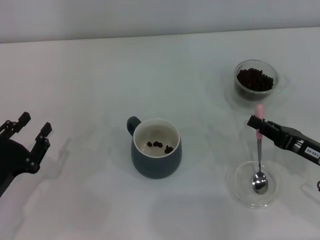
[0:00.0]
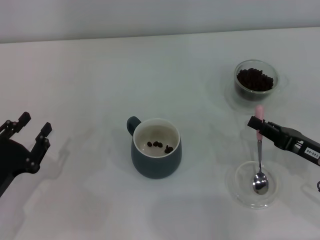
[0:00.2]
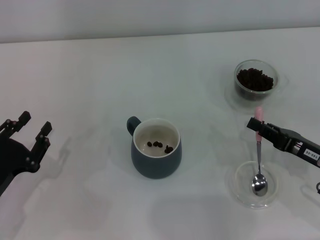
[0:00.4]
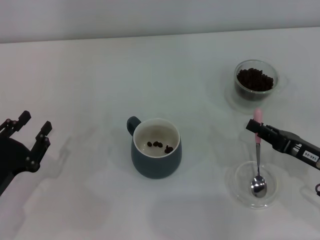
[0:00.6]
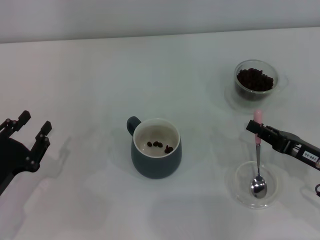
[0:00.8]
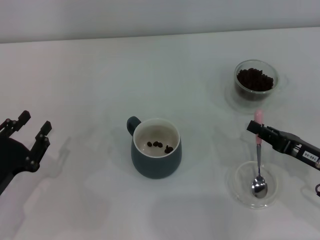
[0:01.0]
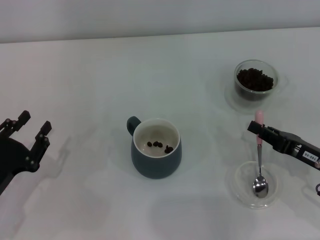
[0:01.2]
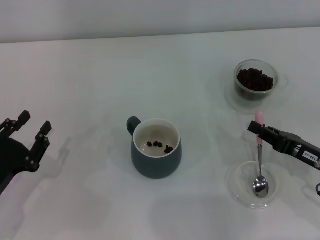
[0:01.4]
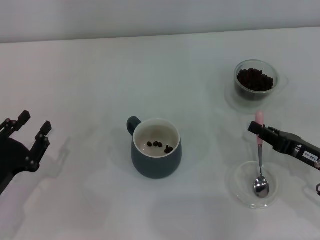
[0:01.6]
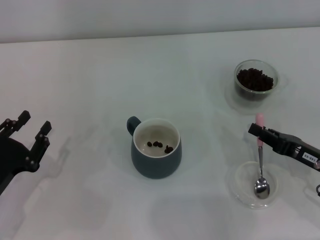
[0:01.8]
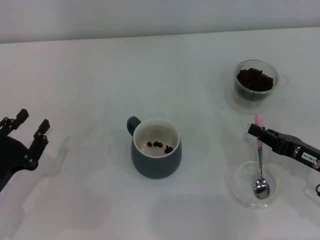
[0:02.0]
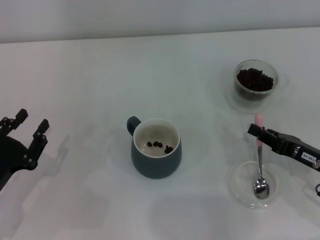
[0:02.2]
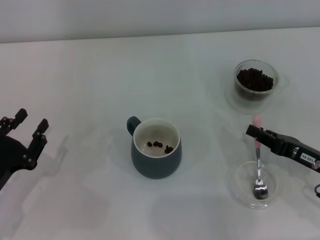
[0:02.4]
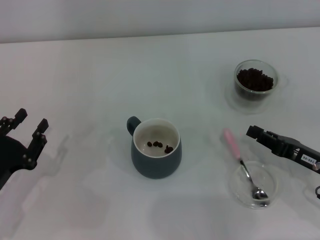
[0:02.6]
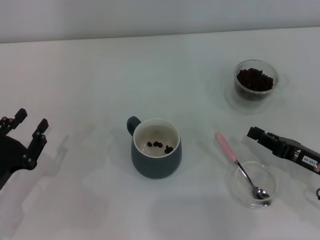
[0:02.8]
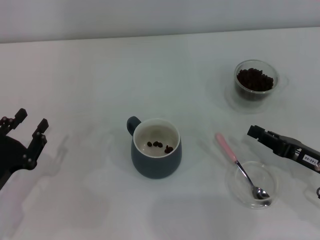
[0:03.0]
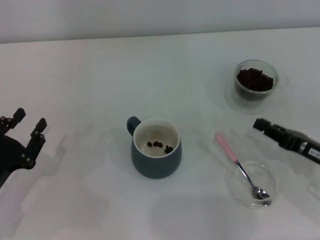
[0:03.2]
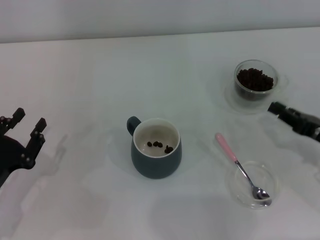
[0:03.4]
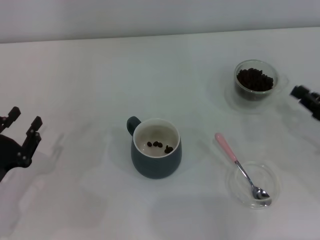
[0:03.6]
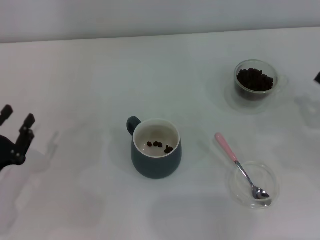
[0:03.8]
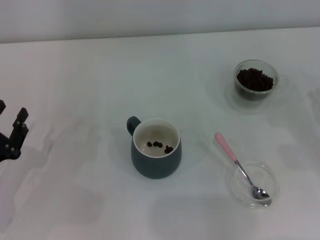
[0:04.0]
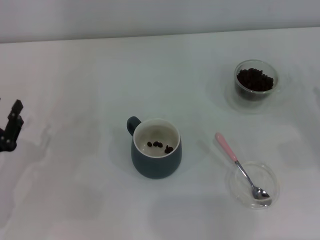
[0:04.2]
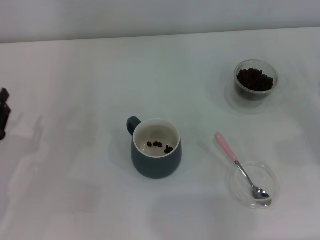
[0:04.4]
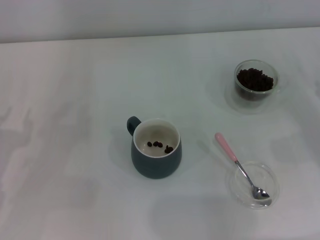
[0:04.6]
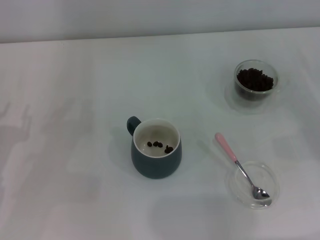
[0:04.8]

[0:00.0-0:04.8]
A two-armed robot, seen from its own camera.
Task of the whole recording: Use a pink spoon to take out the coffee beans from the glass and pour them into the gray cup.
Step, 0:00.0 to 0:02.6: Place the spoon back in its original place with the right gripper.
0:00.0 to 0:01.6: The two grippers keep their place.
0:01.6 to 0:03.2: Both grippers stay about where they are.
0:03.2 to 0:04.8: The right gripper goes about 10 cm to the right, and opens its fingers.

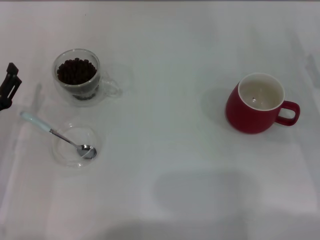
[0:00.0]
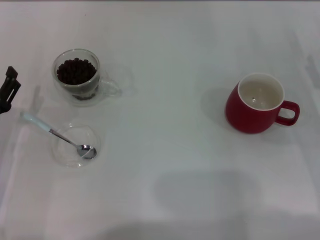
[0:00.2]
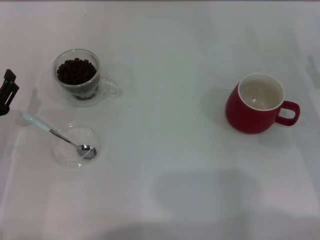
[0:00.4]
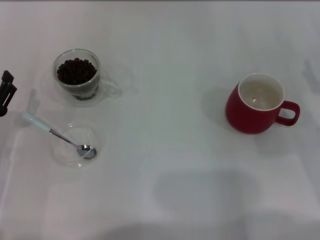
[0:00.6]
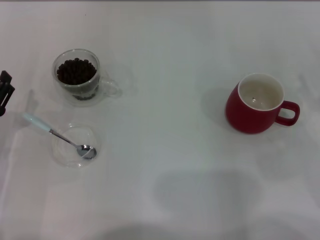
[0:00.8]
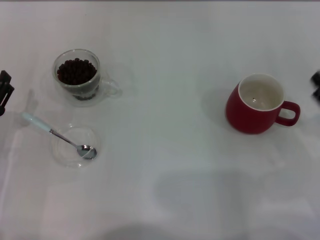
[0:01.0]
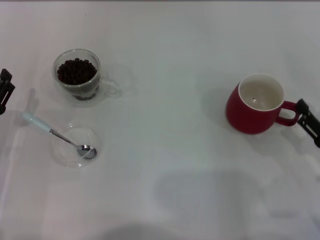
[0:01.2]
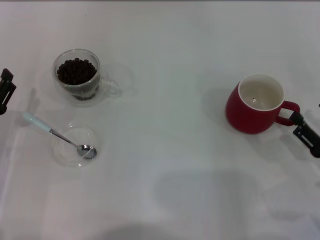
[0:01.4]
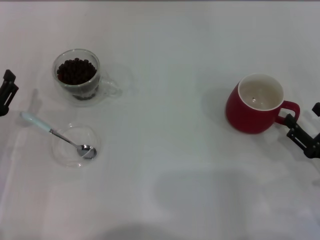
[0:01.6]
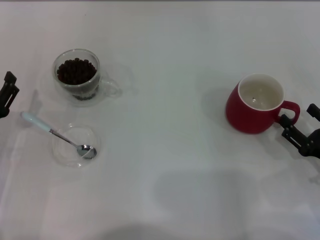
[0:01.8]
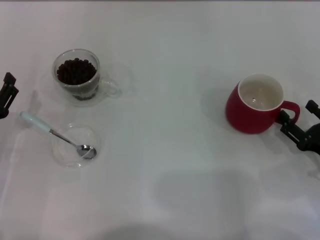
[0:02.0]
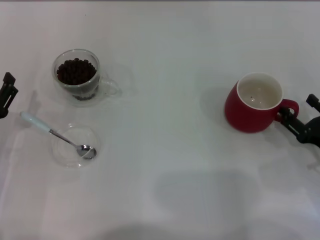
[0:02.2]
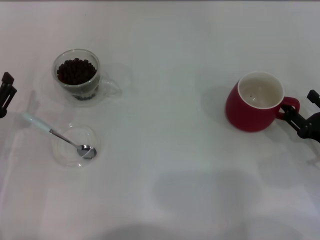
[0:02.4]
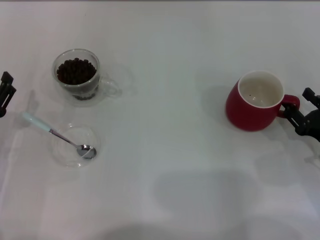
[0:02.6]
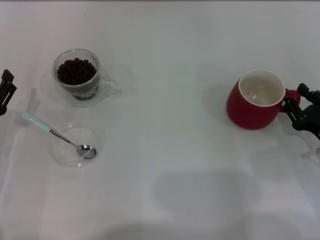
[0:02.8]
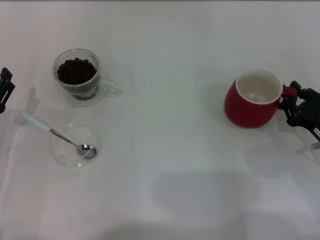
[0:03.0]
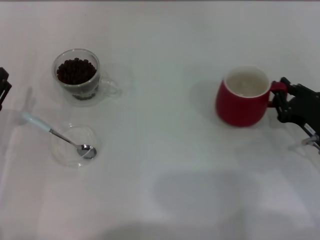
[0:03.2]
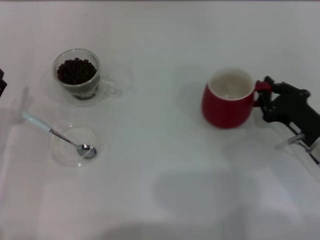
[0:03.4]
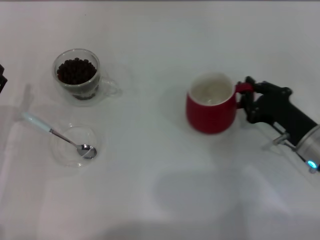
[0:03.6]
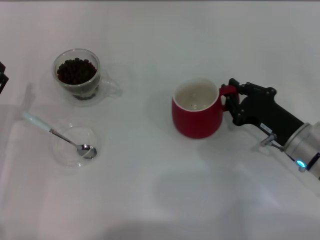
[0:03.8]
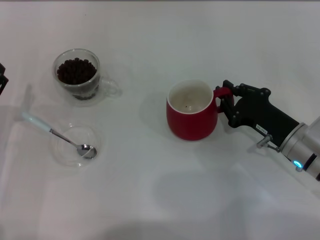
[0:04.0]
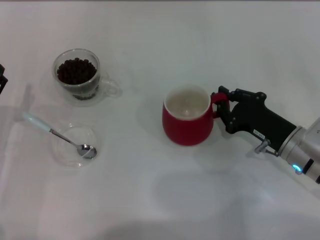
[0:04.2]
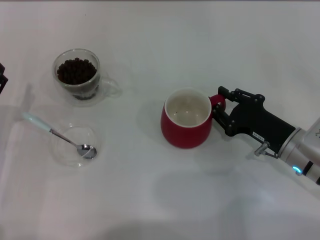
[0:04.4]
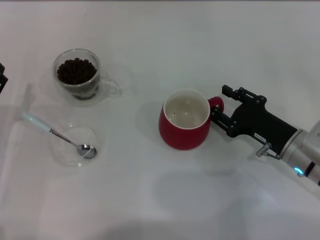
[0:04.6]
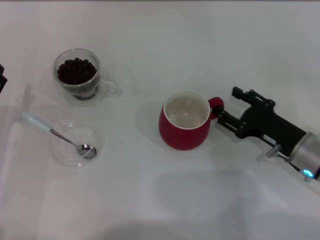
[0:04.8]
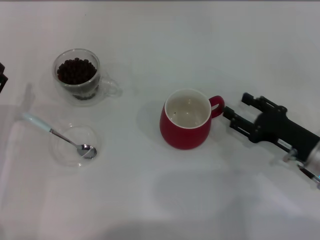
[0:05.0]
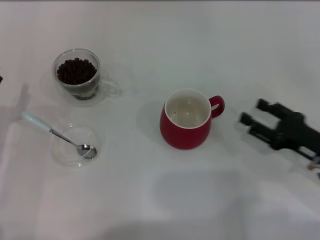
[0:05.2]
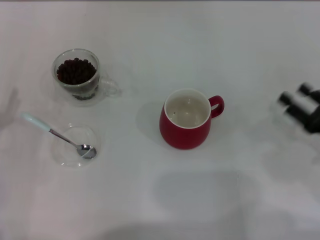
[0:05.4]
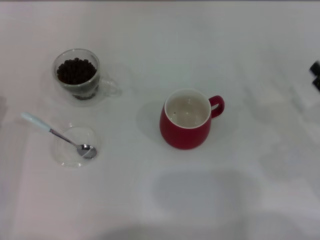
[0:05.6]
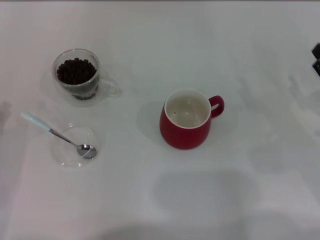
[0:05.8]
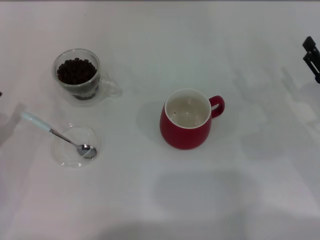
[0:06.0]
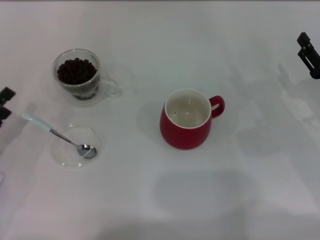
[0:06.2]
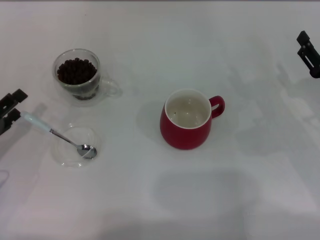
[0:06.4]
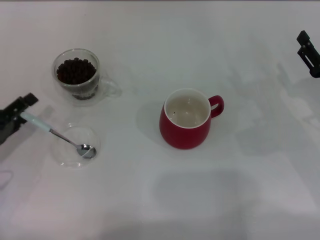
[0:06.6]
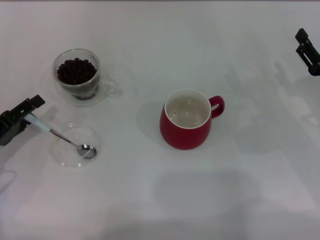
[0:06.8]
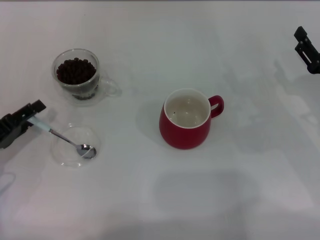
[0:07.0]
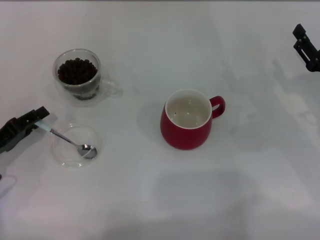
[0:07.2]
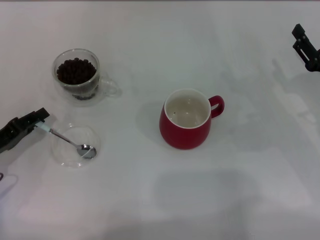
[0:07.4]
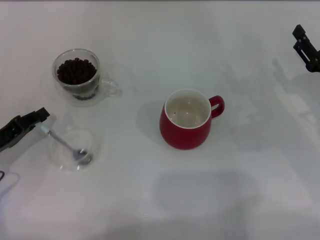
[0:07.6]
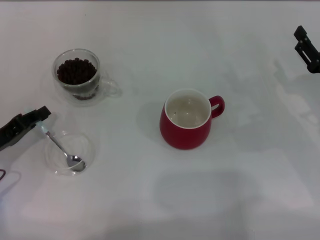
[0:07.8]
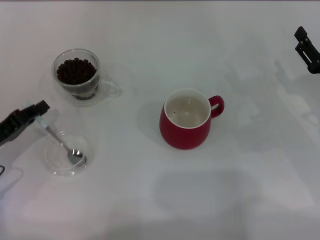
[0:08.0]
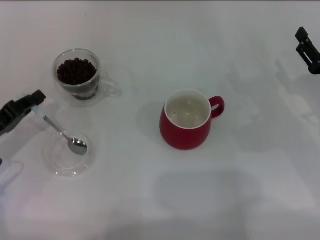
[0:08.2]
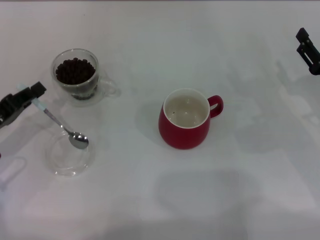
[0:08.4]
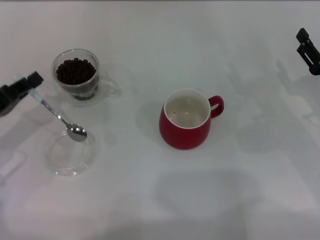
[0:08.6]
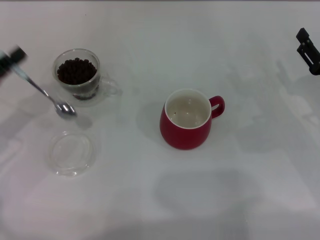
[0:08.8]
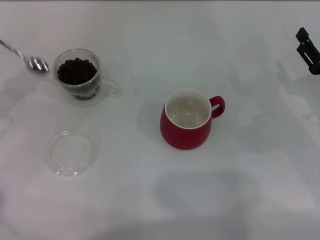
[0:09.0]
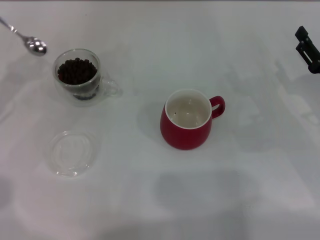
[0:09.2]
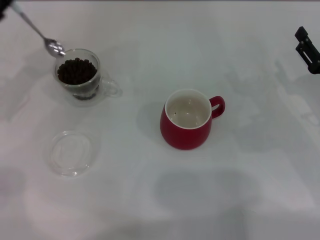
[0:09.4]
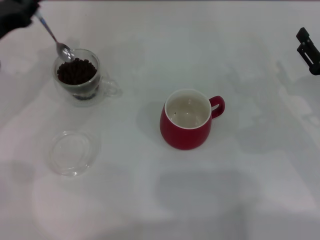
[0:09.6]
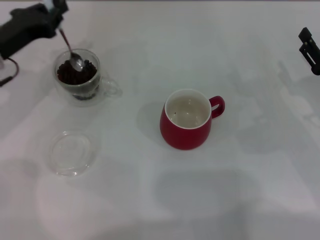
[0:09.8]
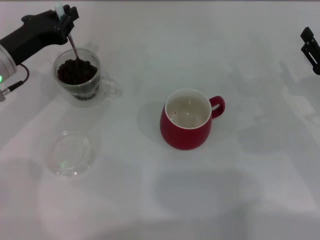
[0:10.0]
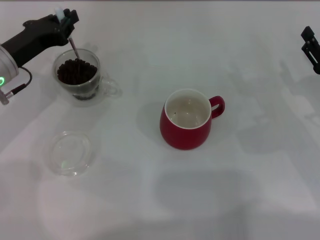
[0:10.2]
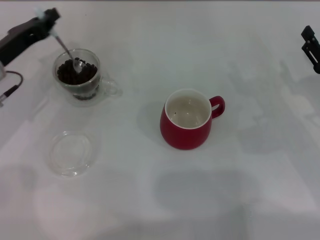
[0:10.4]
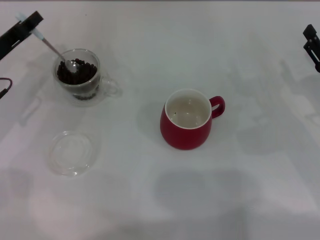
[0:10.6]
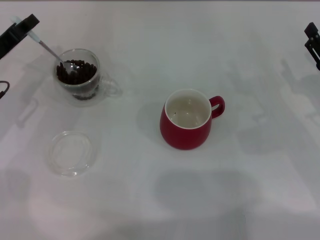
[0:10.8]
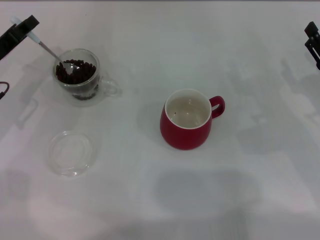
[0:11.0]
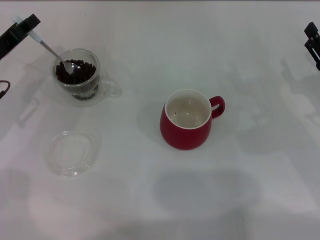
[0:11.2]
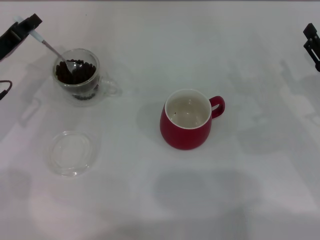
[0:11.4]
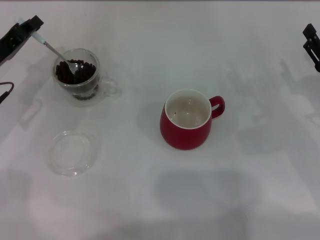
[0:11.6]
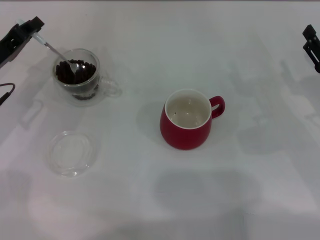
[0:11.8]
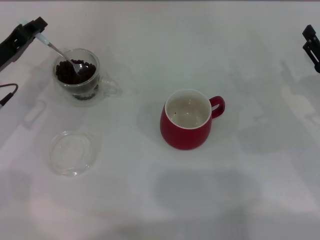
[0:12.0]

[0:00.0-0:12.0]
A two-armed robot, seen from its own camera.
Task of the whole recording: Use a blue spoon to take out the coffee beans from the glass and pour them into the red cup.
Step, 0:05.2 to 0:08.6: Pick up the spoon with the right gripper.
0:00.0 to 0:01.6: The right gripper shifts some 10 cm backward.
0:01.6 to 0:03.0: The right gripper heads forward, covering roughly 5 cm, and closes.
0:03.0 to 0:04.4: The right gripper heads to the left, covering roughly 5 cm, and closes its fingers.
0:04.4 to 0:06.0: The left gripper shifts by roughly 5 cm; the right gripper heads to the right, covering about 10 cm, and opens.
0:06.0 to 0:07.6: The left gripper closes its fingers.
0:07.6 to 0:09.0: The left gripper shifts roughly 10 cm upward.
0:09.0 to 0:10.4: The left gripper travels to the right and forward by approximately 10 cm.

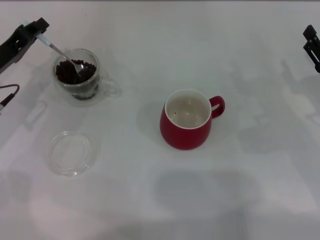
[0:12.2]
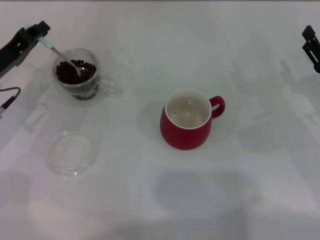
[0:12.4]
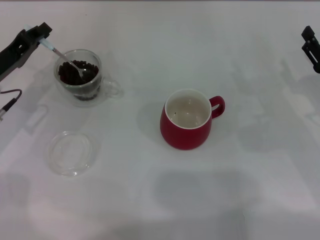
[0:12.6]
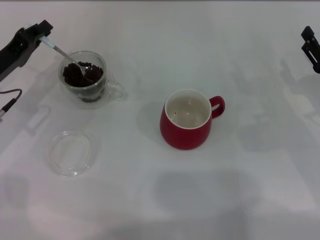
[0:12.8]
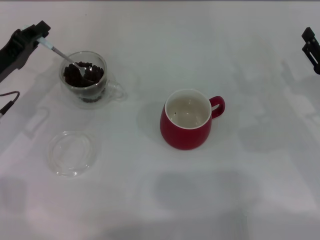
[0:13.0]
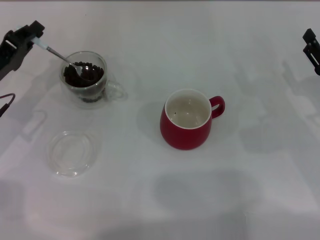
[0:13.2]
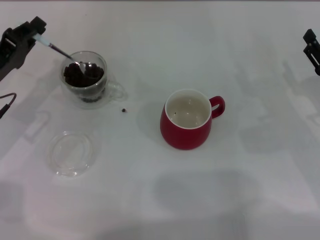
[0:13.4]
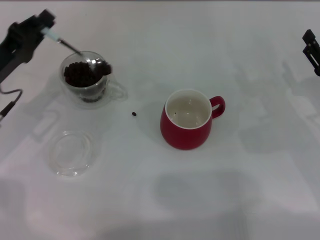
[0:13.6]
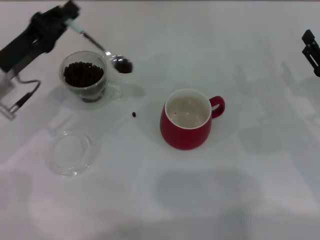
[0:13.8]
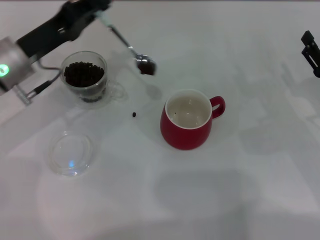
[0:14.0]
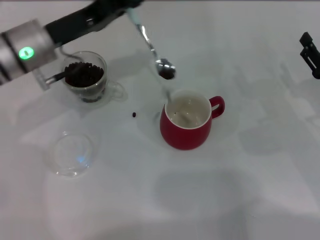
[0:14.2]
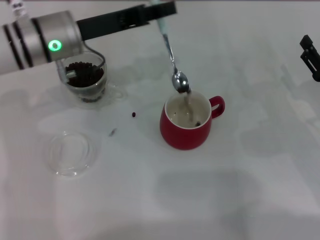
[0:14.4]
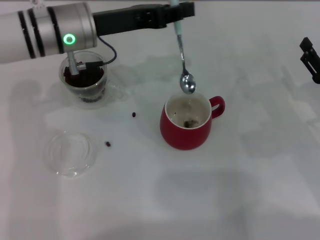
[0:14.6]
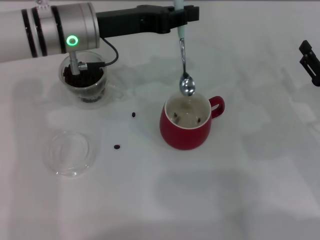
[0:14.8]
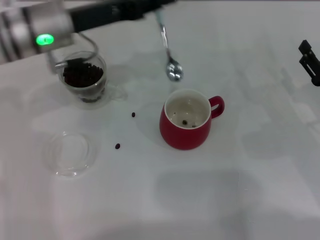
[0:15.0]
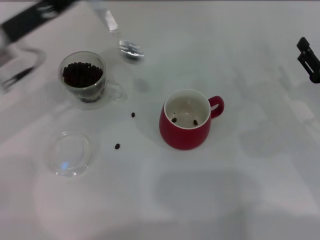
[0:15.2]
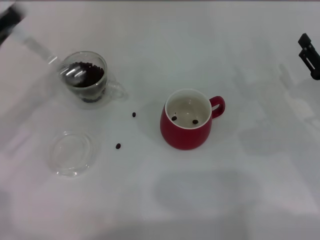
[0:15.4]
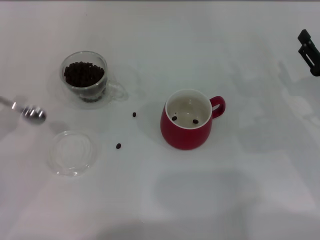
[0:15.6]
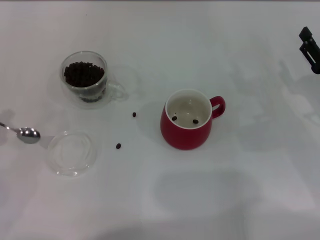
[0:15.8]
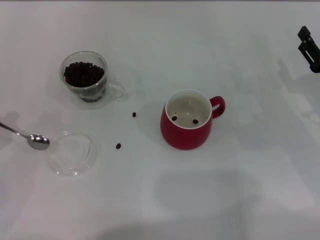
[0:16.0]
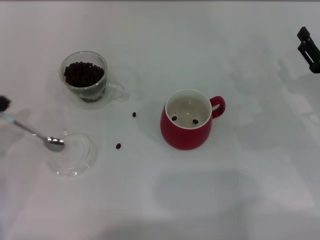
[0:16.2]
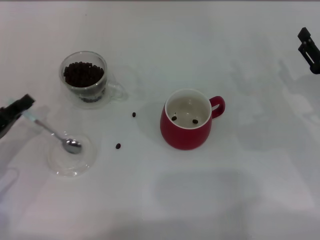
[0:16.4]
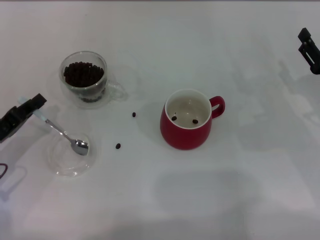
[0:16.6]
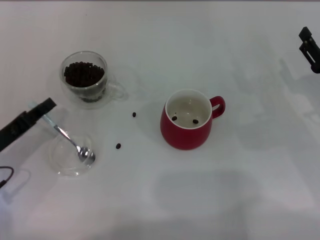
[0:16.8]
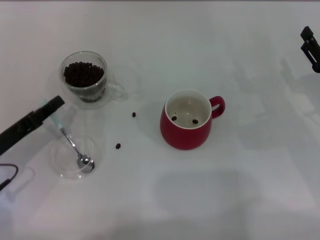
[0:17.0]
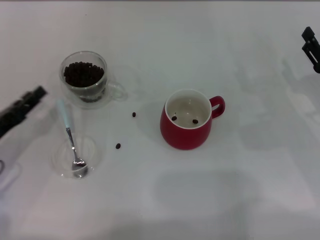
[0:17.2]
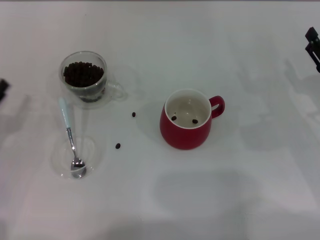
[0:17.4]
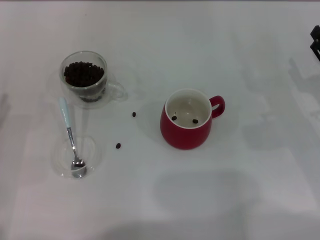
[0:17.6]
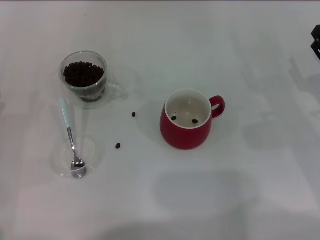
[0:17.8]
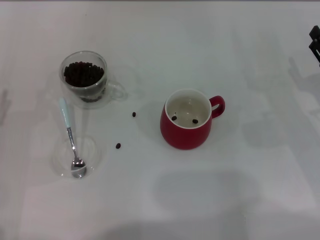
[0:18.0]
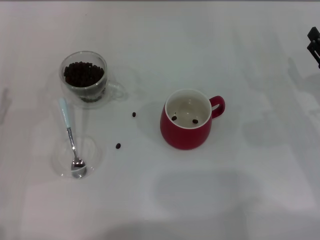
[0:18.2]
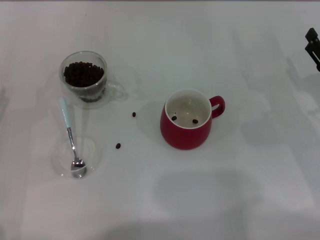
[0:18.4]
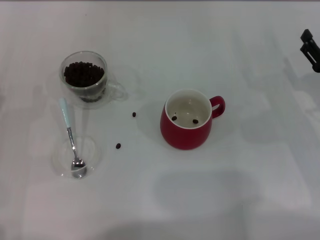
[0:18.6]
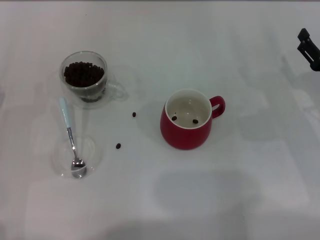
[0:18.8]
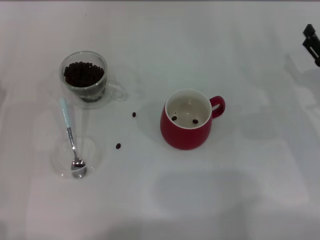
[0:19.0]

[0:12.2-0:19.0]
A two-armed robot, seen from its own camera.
Task of the whole recording: Use a blue spoon to take out the coffee beans from the glass and pour them into the red cup.
0:12.2 to 0:13.6: There are only small adjustments of the grippers.
0:13.6 to 0:15.0: The left gripper moves to the right, upward and forward, approximately 15 cm.
0:15.0 to 0:16.2: The left gripper moves to the left, backward and downward, roughly 25 cm.
0:16.2 to 0:17.6: The left gripper opens up.
